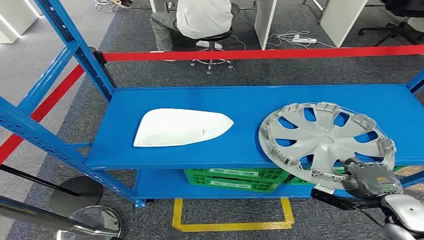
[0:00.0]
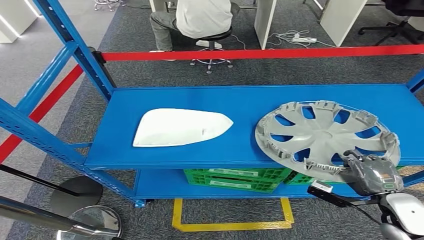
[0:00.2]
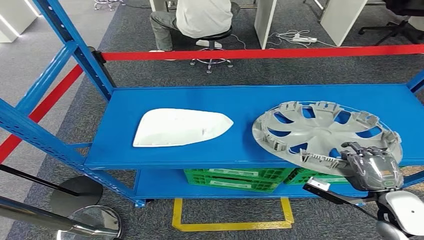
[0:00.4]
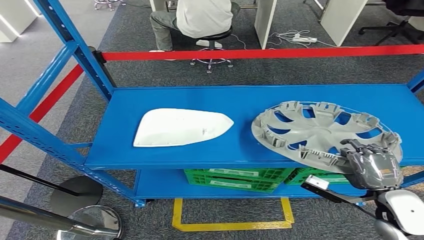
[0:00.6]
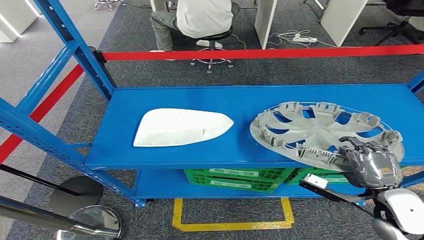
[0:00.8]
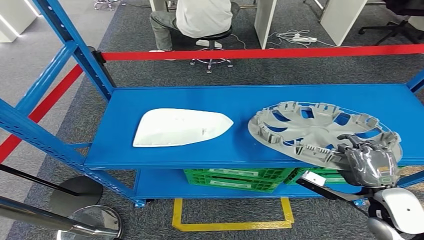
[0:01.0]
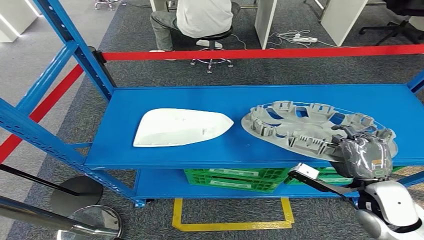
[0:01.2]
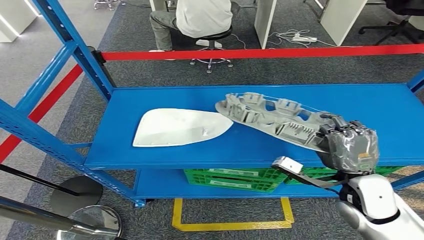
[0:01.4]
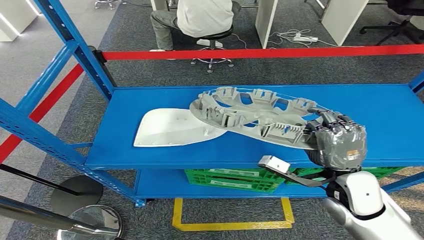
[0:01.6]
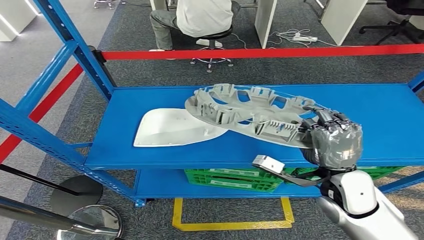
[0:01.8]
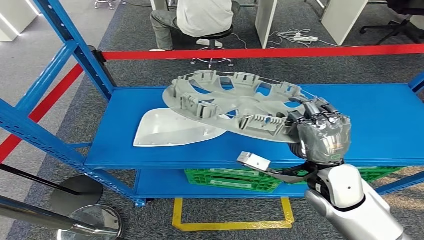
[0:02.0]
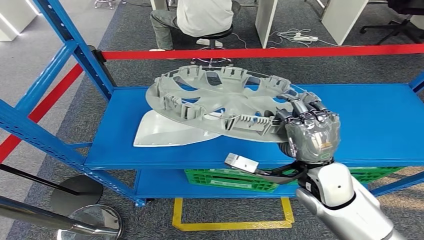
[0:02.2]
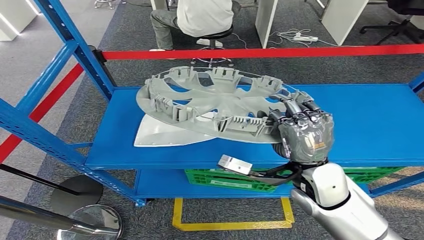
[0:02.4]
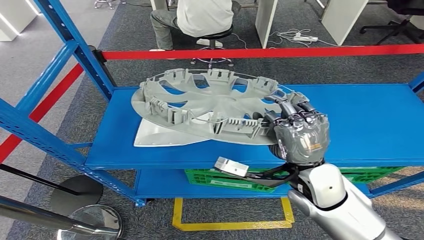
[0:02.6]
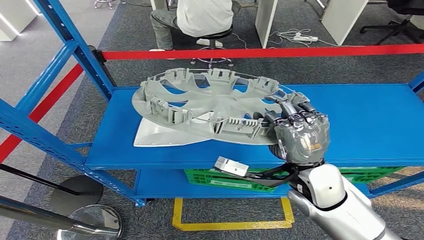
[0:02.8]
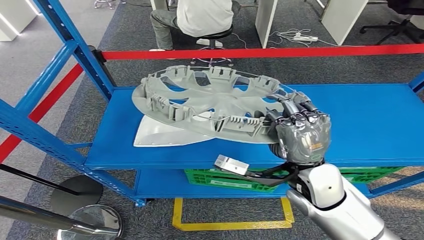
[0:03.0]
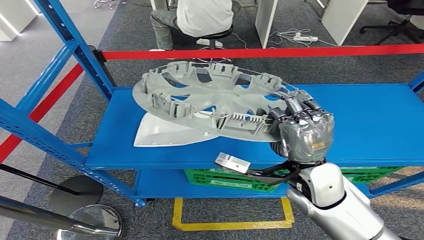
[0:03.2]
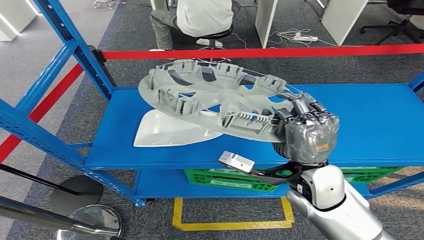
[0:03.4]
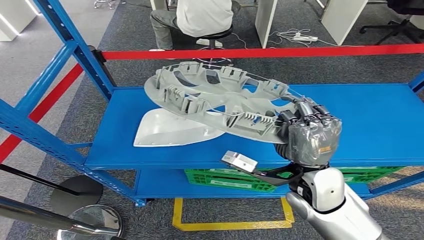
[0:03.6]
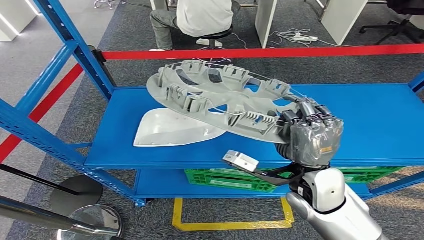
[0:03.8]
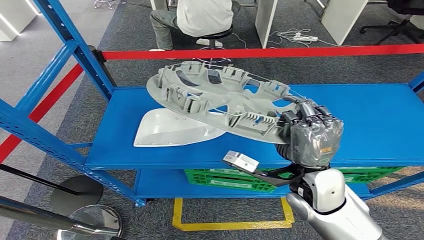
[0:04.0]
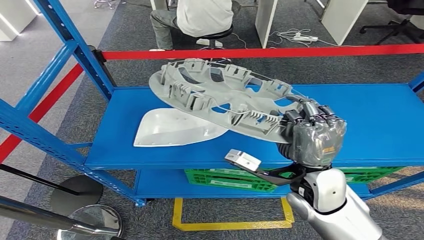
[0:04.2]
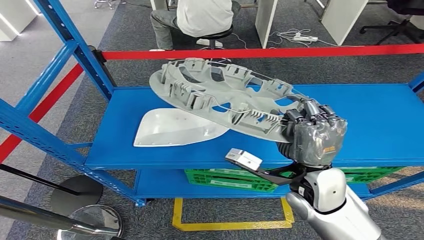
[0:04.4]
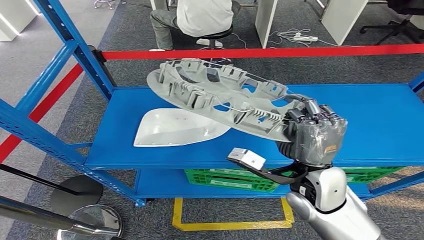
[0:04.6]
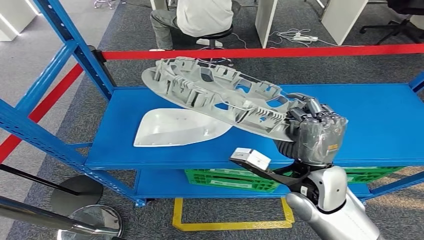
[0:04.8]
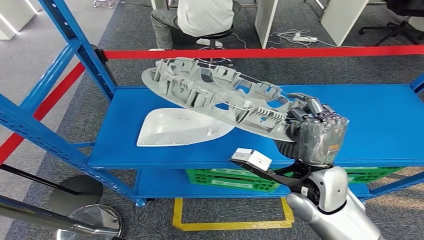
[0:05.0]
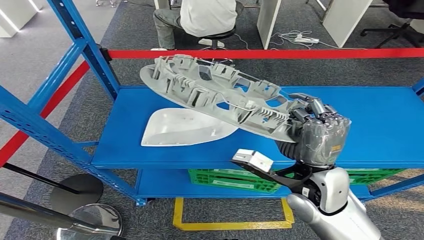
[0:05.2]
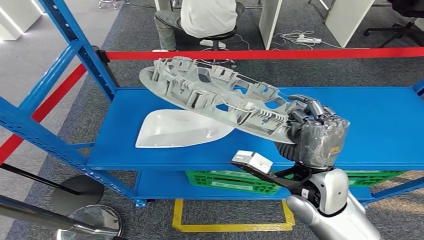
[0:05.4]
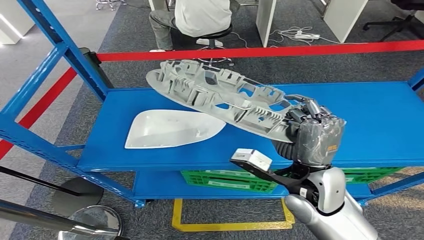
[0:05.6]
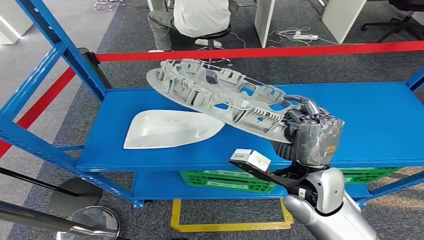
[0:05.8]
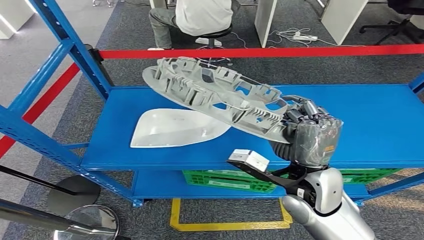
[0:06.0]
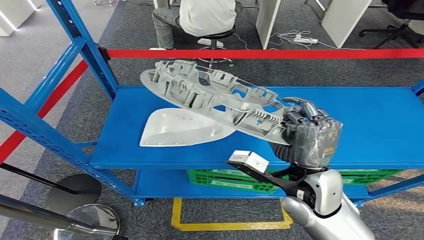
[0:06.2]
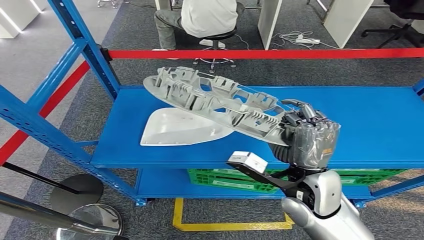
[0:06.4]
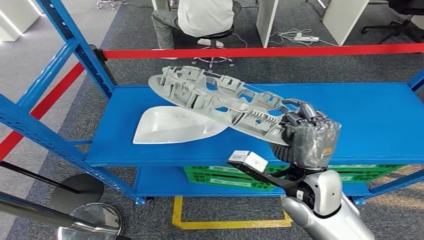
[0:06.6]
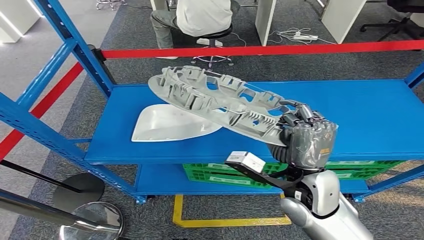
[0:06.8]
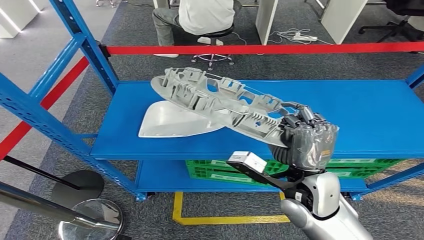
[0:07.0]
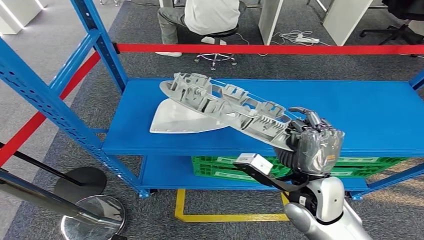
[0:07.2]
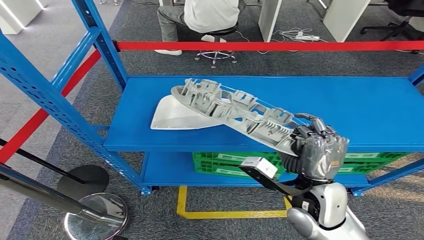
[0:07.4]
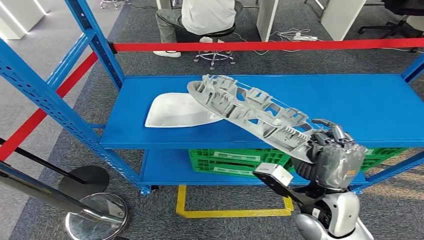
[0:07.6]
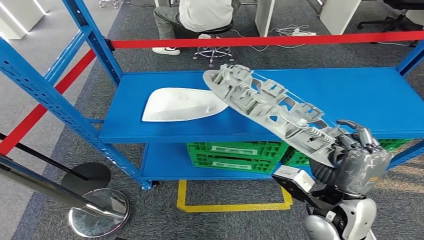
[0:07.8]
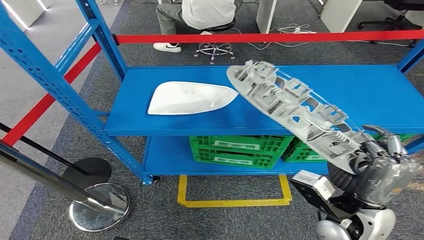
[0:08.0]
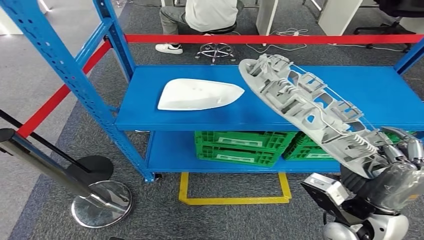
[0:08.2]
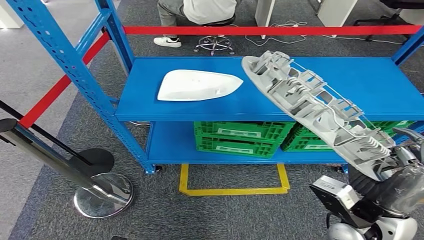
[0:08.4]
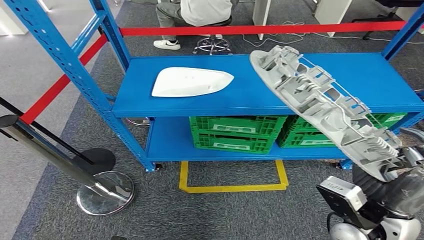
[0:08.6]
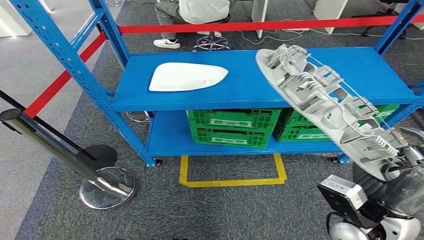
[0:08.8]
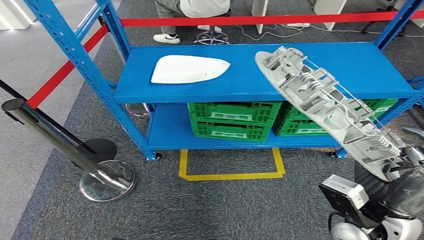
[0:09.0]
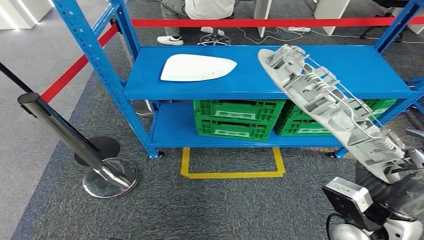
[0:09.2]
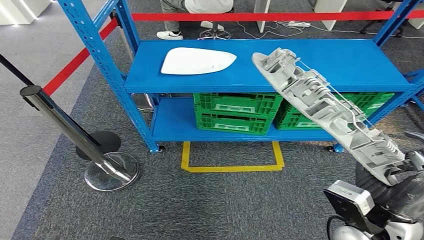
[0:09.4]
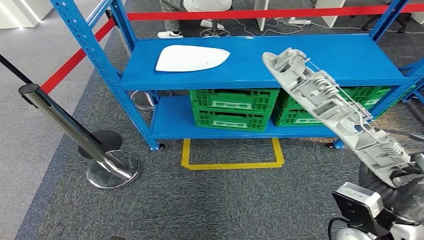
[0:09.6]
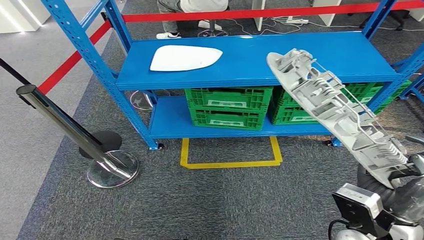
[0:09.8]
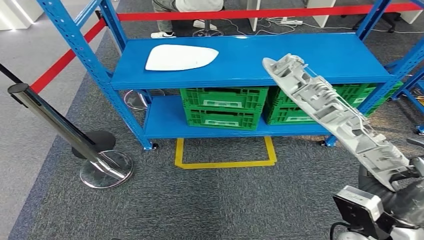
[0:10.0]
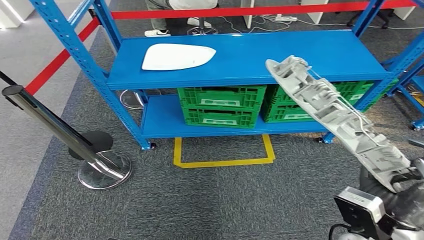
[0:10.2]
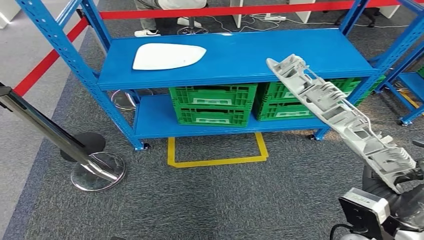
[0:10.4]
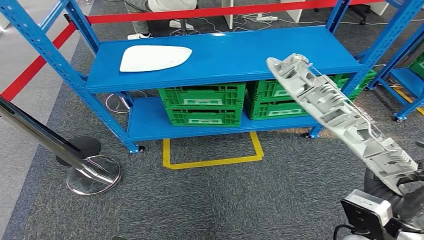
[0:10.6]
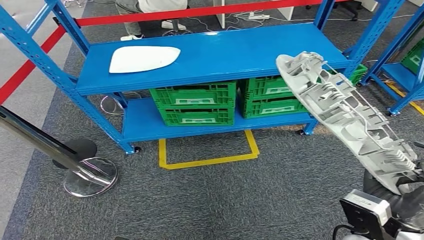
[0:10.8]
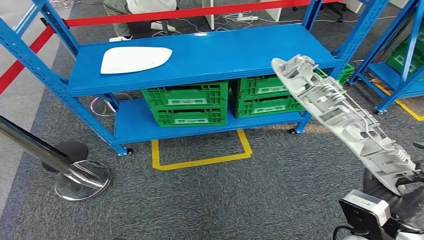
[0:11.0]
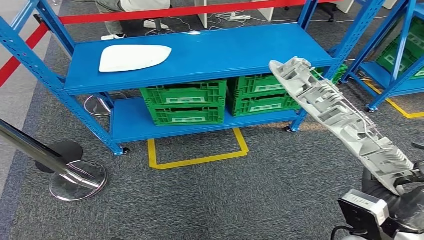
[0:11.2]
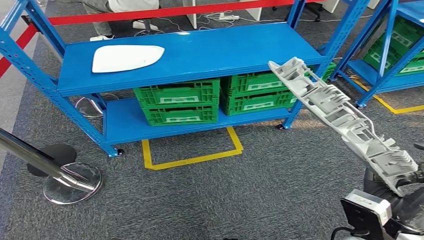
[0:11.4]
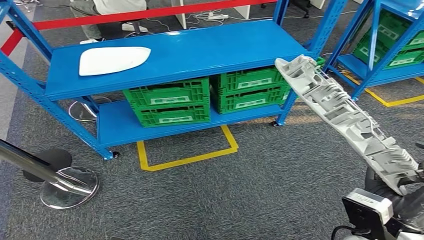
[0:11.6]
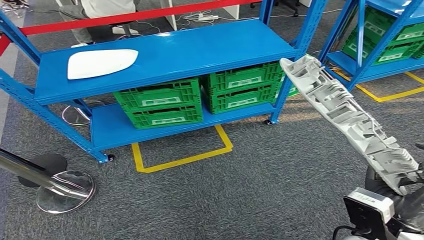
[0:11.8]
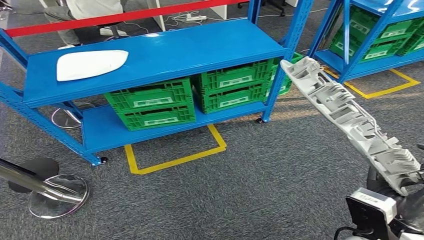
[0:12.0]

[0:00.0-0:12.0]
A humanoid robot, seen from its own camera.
Step, 0:00.0 to 0:04.2: Pick up the small parts from the shelf.
0:01.6 to 0:03.0: The right hand travels to the left by about 10 cm.
0:03.0 to 0:06.0: There are only small adjustments of the hands.

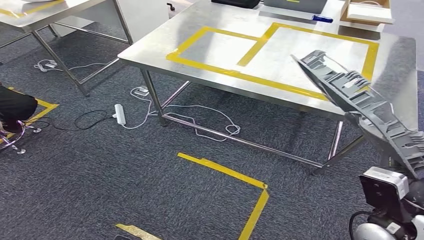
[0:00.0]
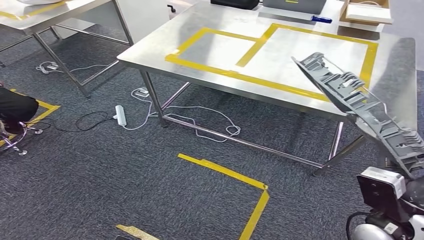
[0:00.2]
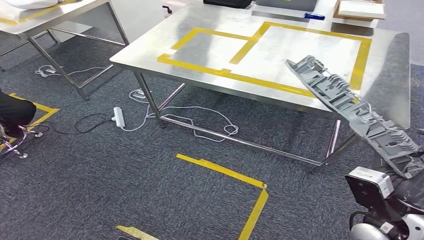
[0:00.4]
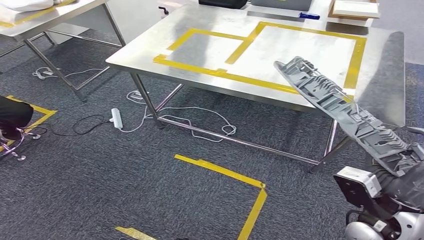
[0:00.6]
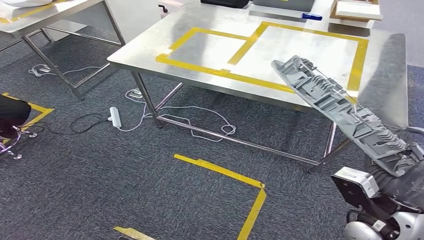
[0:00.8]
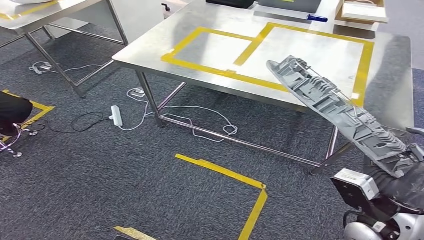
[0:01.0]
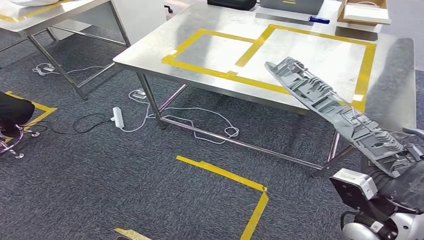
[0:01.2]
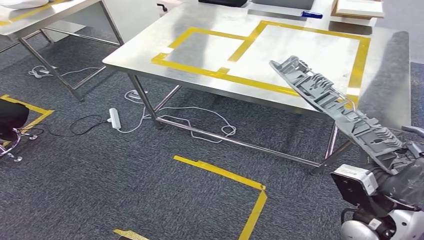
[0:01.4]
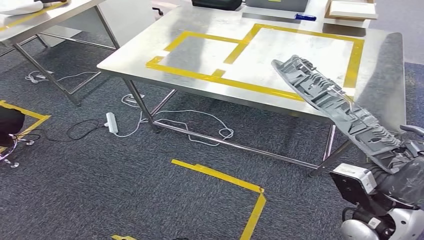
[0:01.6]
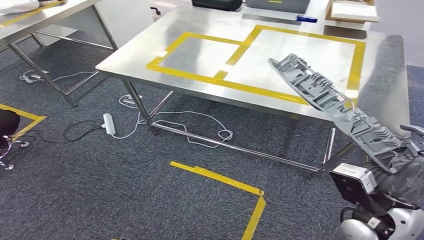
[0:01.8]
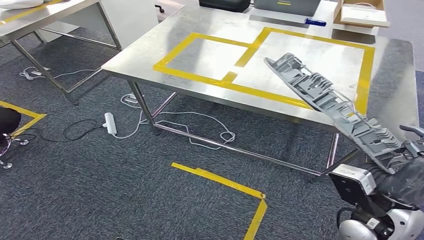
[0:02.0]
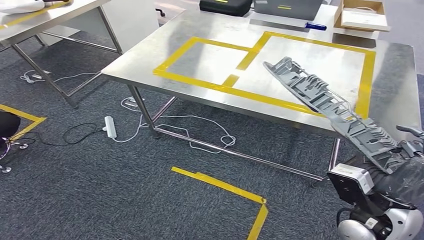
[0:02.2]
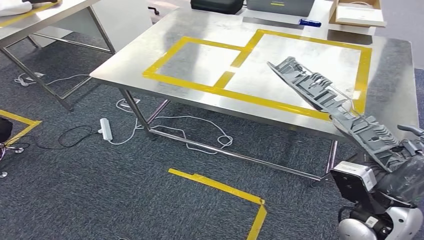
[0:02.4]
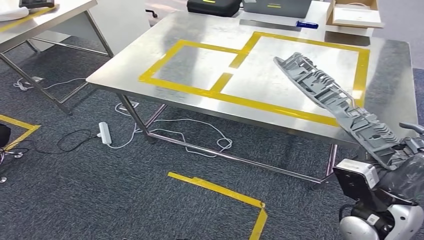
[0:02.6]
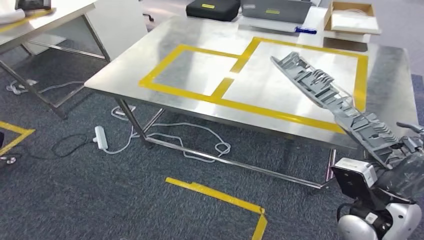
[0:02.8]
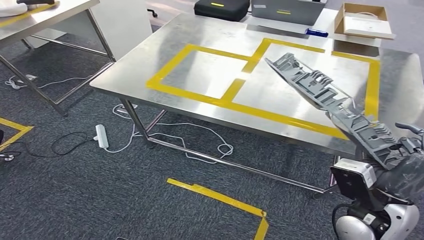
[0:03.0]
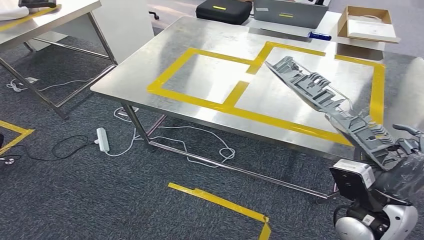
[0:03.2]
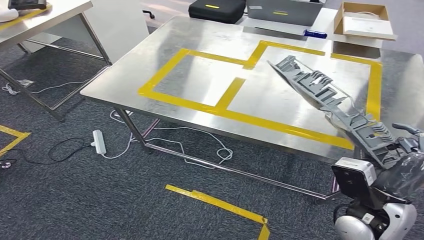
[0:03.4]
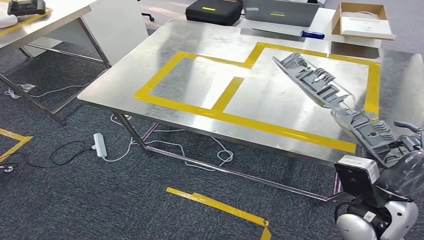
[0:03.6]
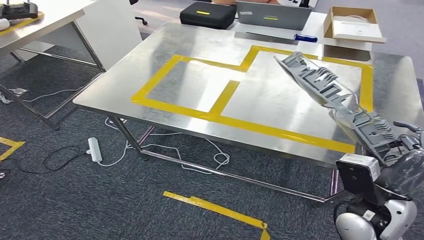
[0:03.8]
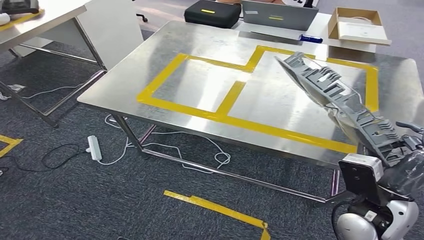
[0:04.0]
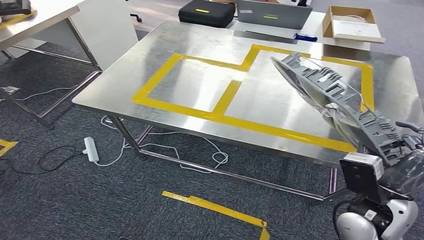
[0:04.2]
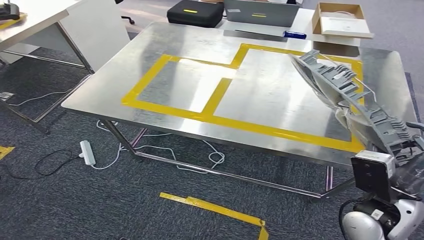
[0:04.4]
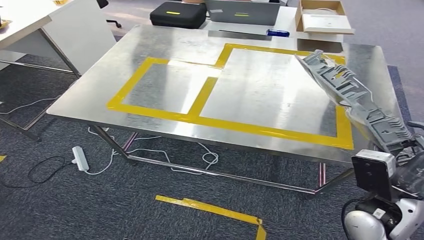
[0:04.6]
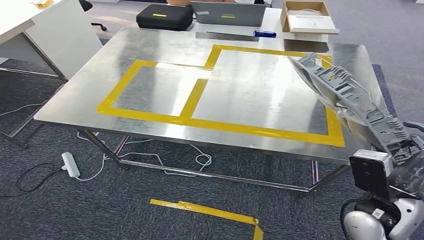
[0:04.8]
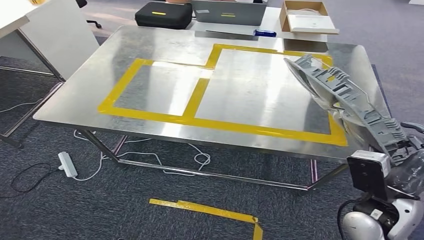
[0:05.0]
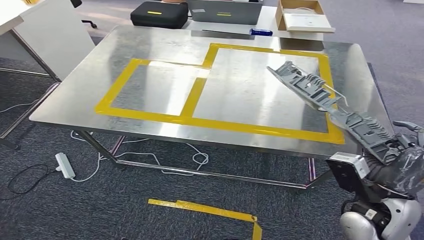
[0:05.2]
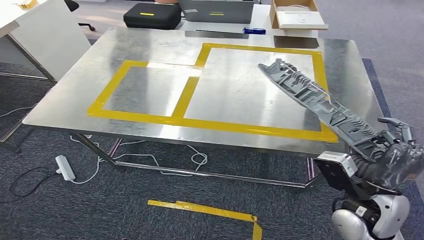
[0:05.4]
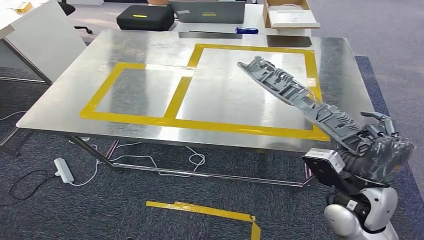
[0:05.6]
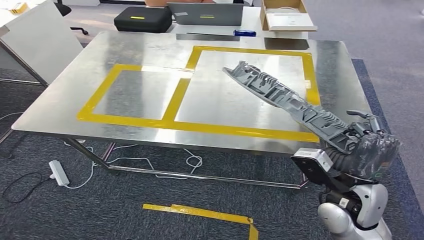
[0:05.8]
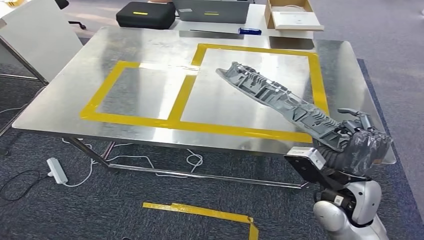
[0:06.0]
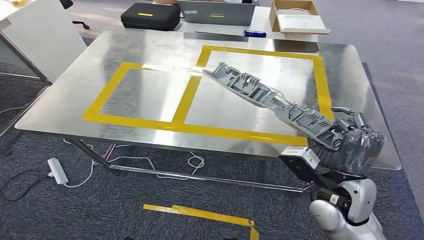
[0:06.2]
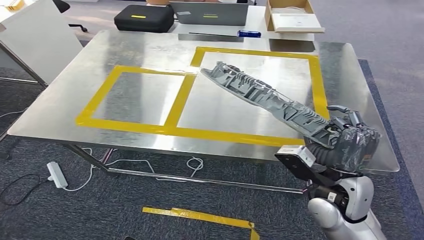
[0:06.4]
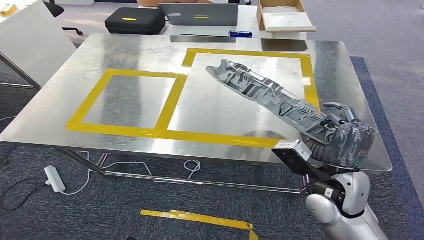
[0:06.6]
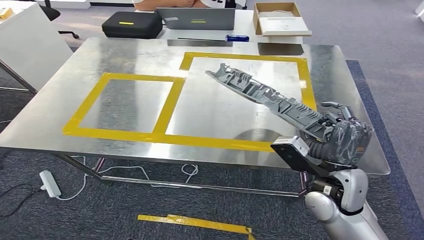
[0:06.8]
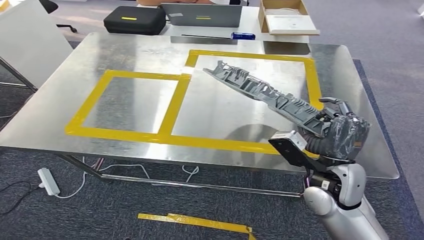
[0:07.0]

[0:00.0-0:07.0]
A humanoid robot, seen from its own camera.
Step, 0:00.0 to 0:05.6: Move the small parts to the workbench.
